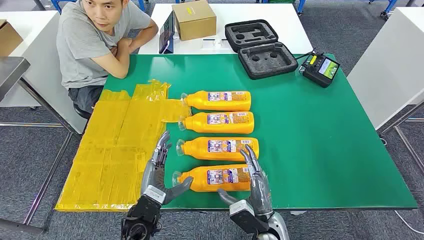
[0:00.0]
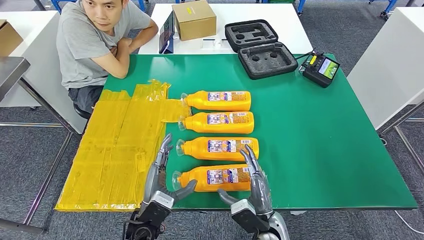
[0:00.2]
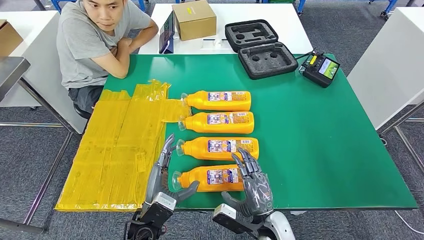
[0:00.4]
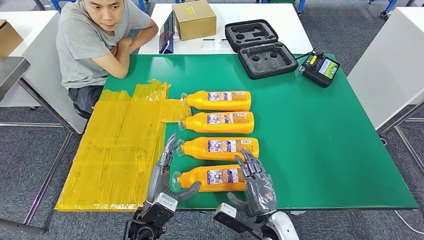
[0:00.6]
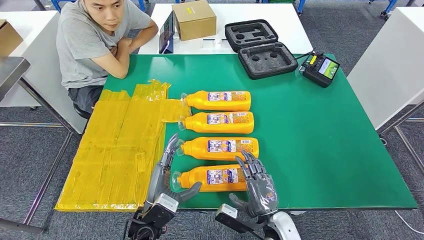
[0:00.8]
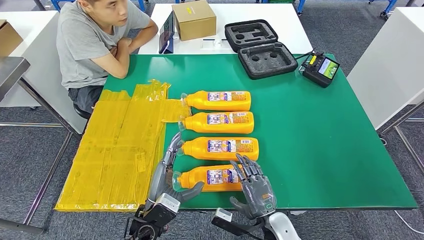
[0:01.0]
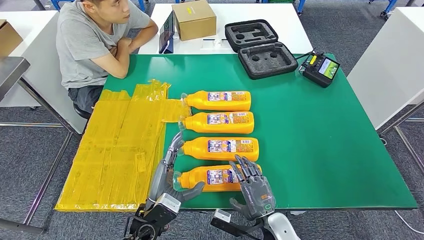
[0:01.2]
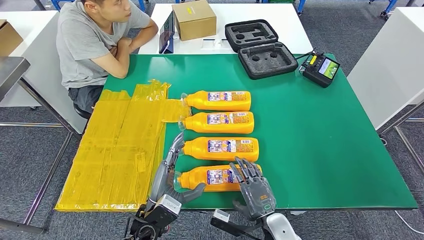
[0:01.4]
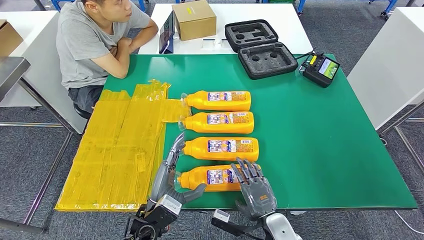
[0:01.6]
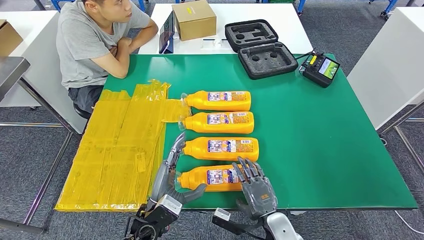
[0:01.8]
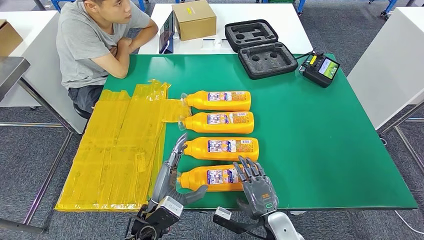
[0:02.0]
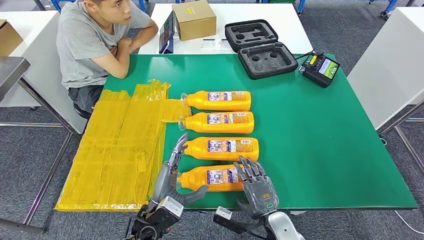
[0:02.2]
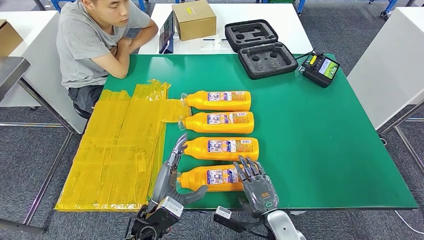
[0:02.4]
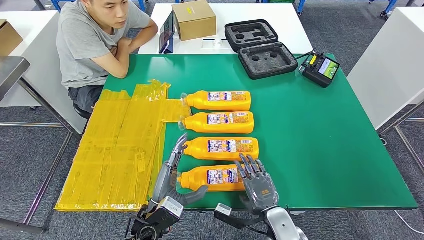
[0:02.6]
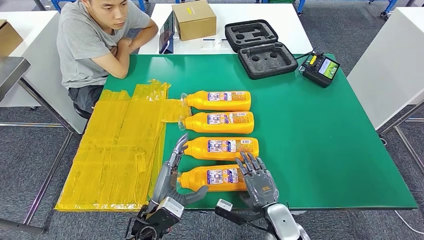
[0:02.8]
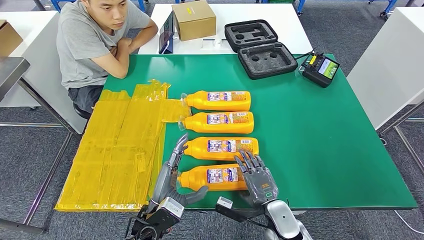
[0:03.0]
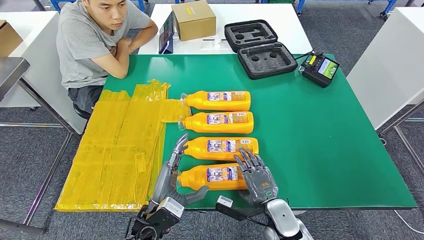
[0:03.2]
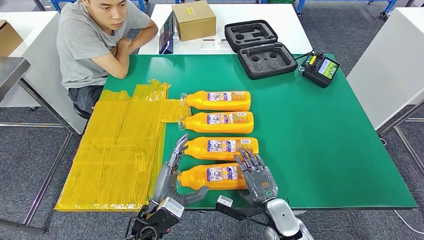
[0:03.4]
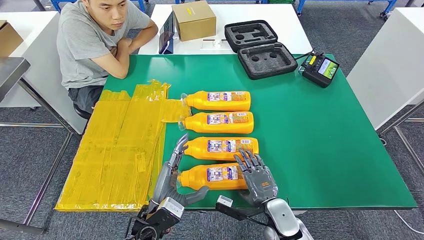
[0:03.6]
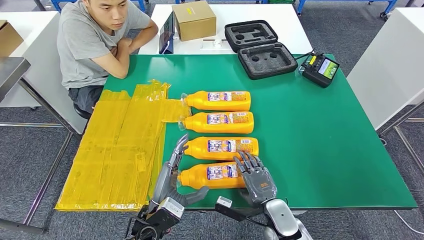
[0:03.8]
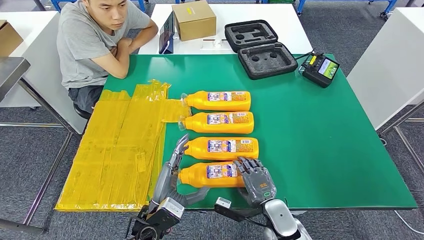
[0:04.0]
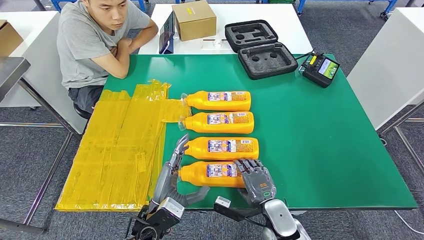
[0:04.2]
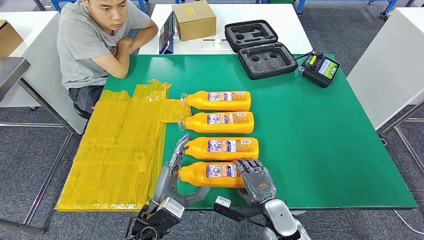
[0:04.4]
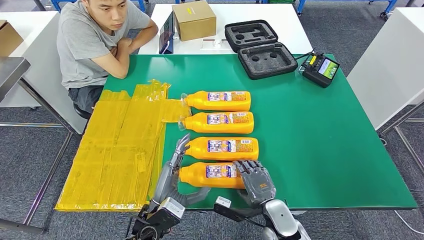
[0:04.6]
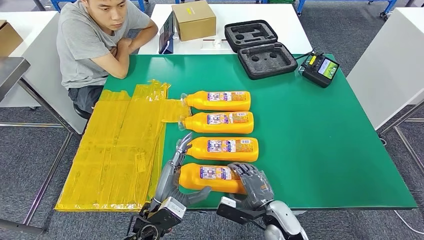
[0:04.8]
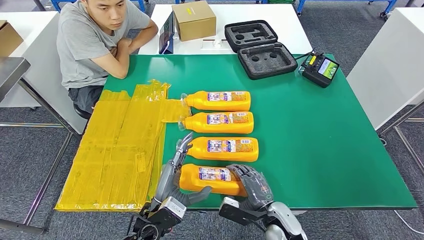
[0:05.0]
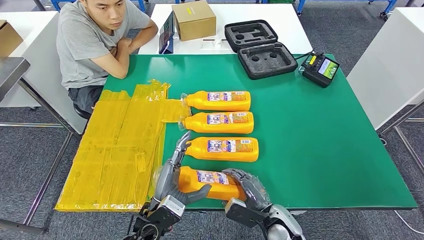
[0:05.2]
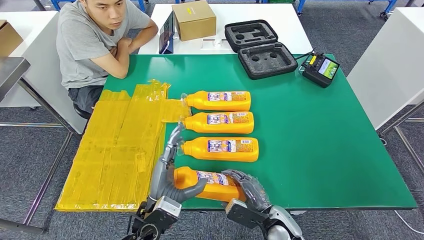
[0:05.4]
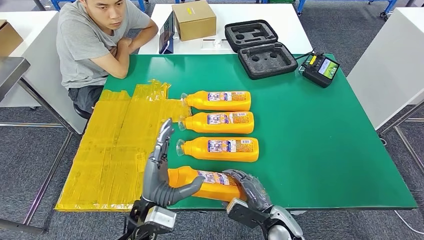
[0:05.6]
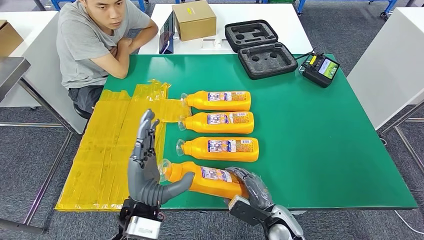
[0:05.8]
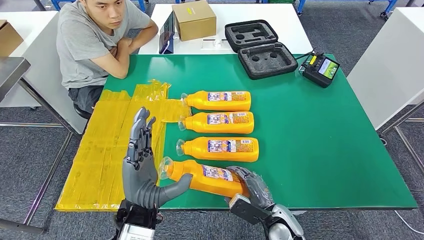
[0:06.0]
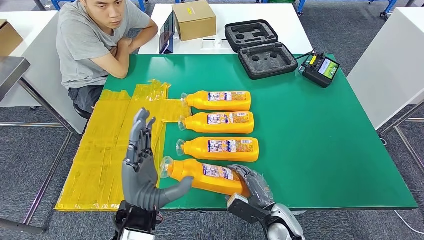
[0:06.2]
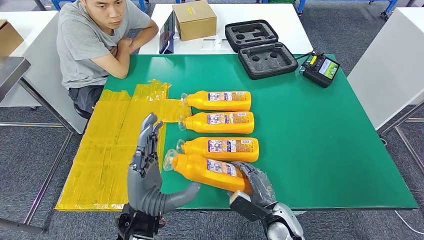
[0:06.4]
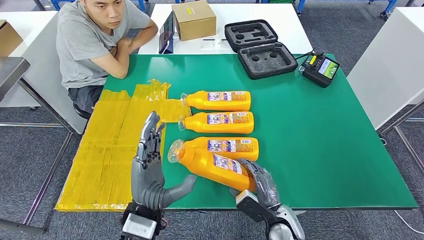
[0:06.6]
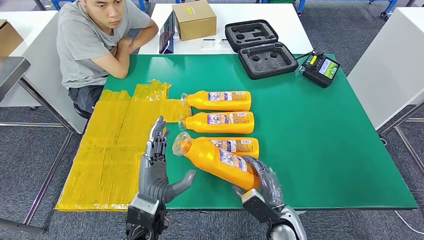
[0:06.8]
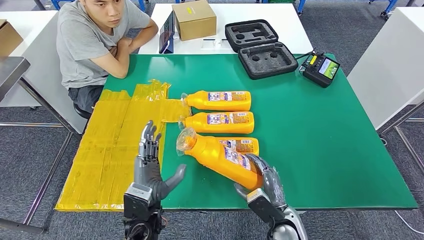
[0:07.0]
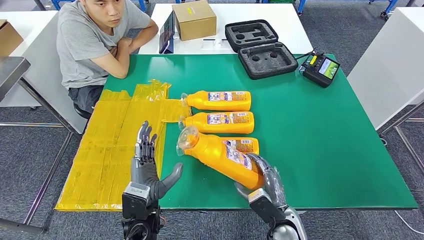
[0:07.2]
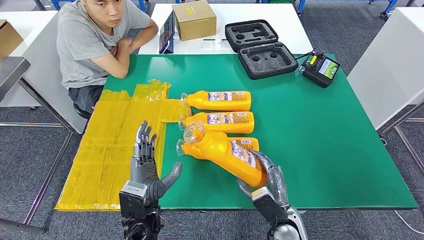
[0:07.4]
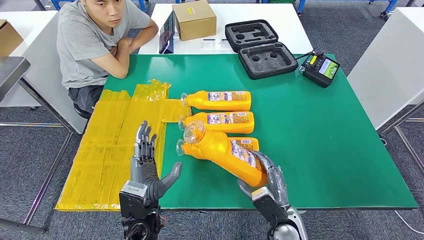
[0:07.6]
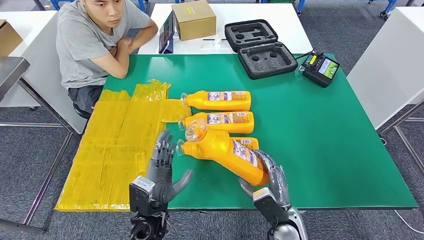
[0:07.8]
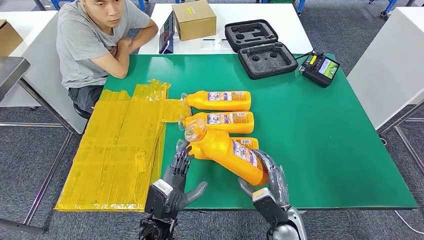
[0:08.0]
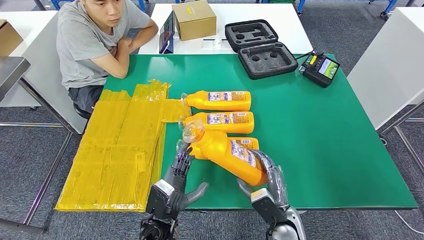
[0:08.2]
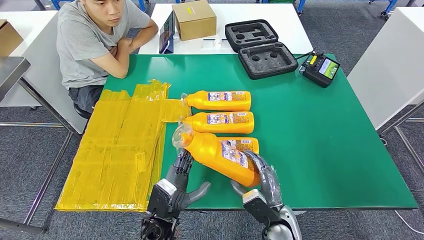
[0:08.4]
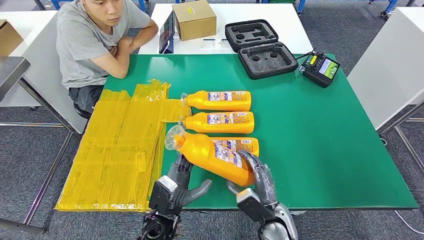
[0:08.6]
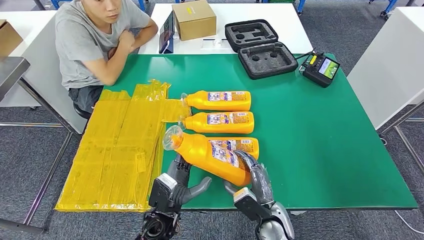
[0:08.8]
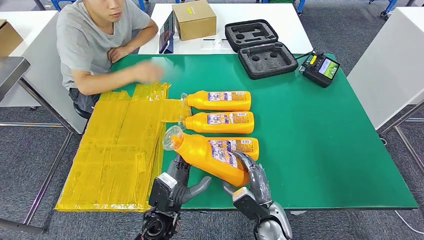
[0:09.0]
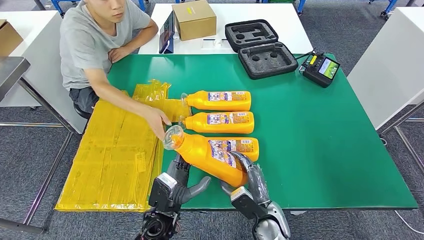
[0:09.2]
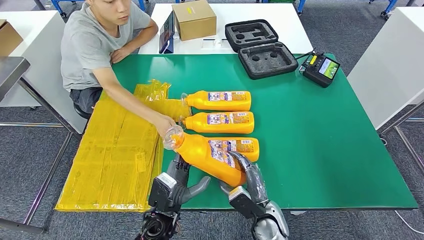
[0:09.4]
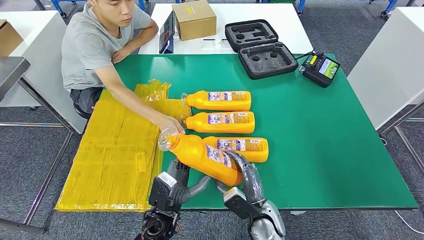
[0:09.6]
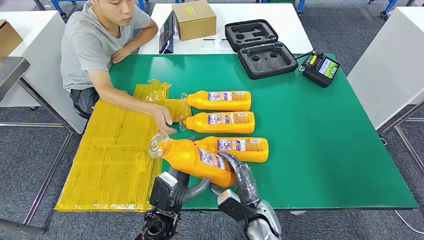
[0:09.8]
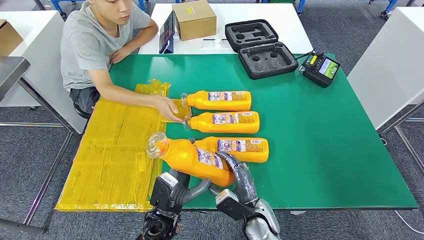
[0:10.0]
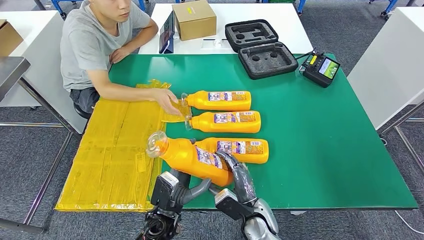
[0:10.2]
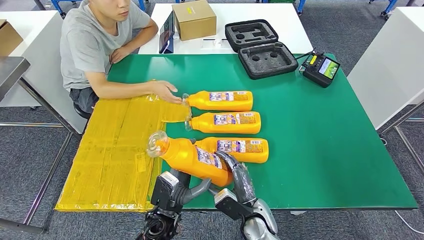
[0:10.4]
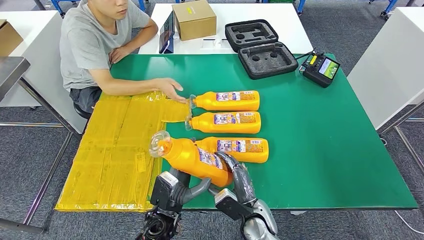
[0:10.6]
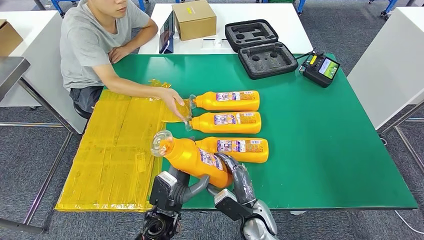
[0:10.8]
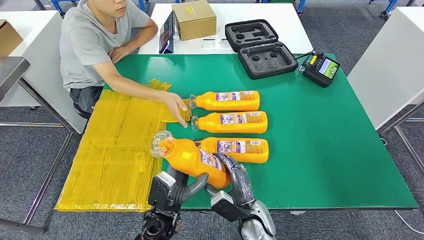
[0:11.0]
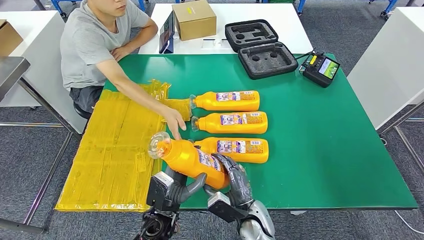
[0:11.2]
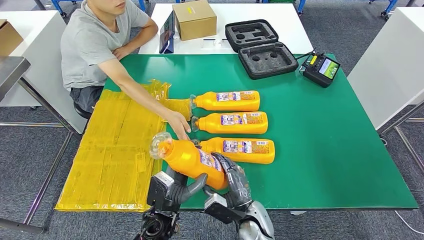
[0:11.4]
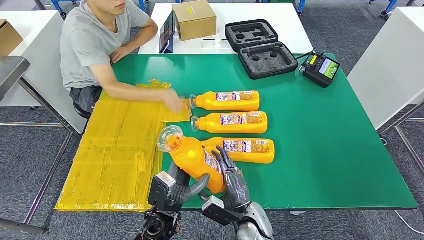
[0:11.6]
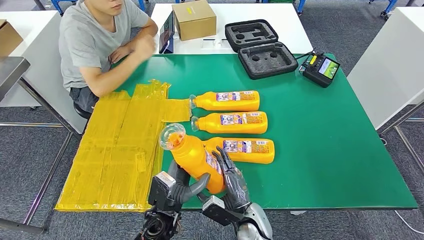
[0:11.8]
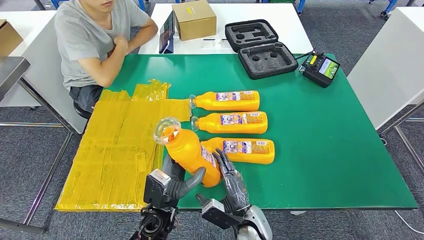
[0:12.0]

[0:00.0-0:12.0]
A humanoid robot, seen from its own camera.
Step, 0:00.0 to 0:09.2: Take the fast-moving consumer goods bottle from the table.
0:01.6 to 0:04.4: There are only small adjustments of the hands.
0:04.4 to 0:06.0: The left hand shifts approximately 10 cm upward.
0:06.0 to 0:07.6: The left hand shifts roughly 5 cm downward.
0:07.6 to 0:09.0: The left hand moves about 5 cm.
0:09.0 to 0:12.0: There are only small adjustments of the hands.

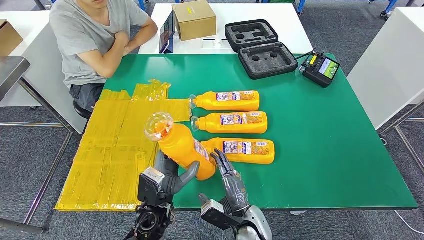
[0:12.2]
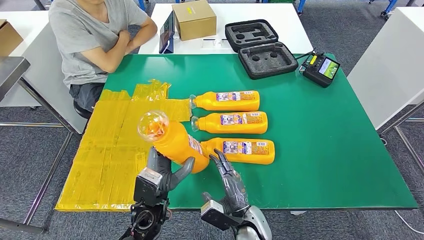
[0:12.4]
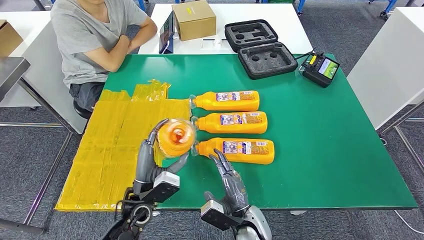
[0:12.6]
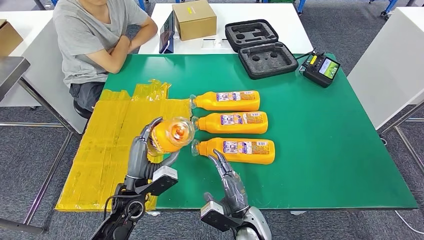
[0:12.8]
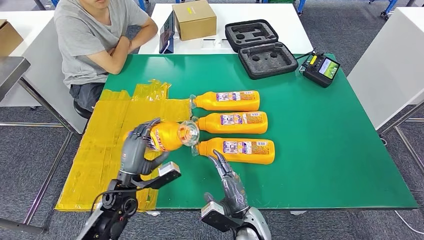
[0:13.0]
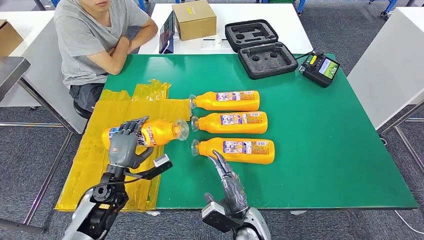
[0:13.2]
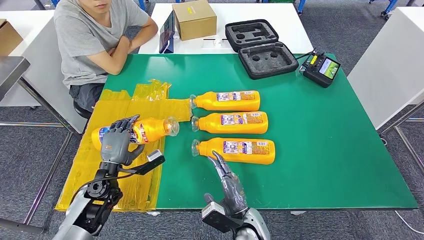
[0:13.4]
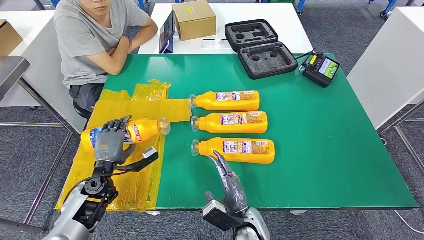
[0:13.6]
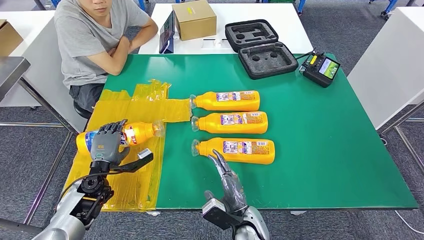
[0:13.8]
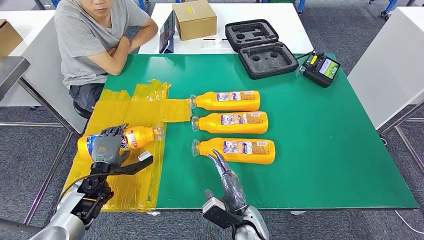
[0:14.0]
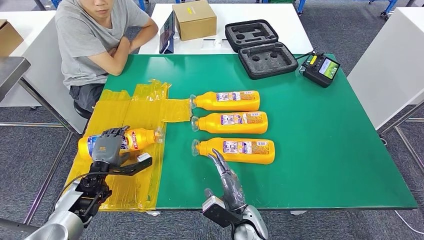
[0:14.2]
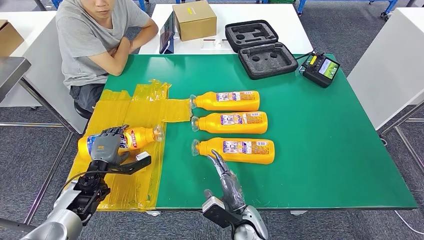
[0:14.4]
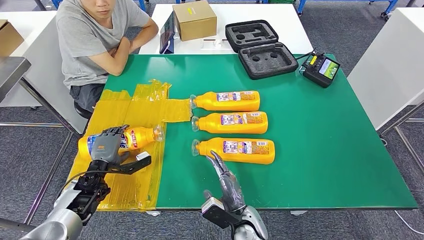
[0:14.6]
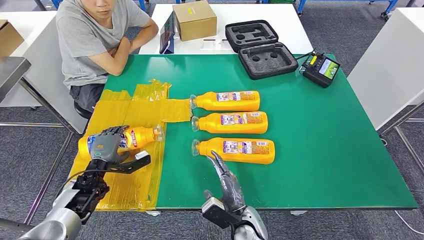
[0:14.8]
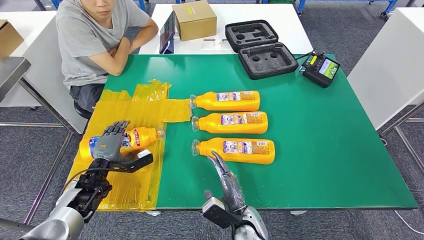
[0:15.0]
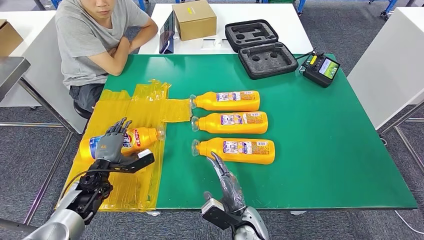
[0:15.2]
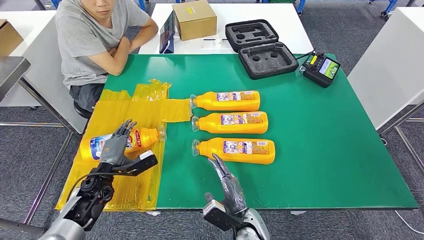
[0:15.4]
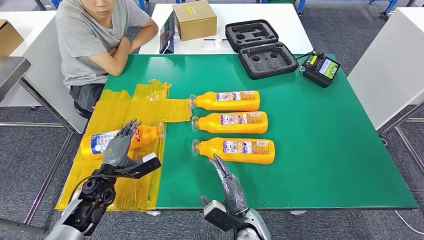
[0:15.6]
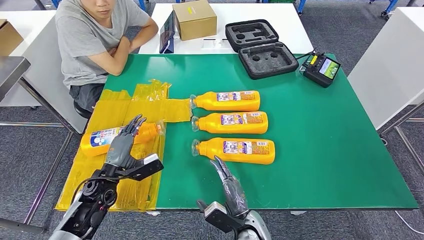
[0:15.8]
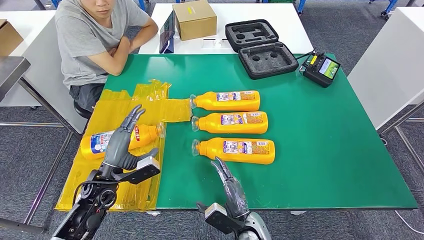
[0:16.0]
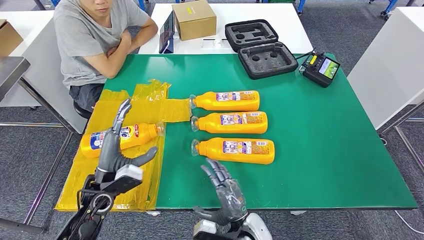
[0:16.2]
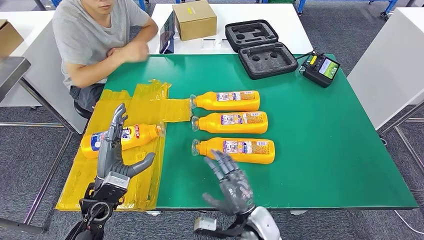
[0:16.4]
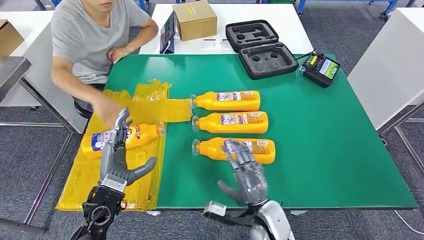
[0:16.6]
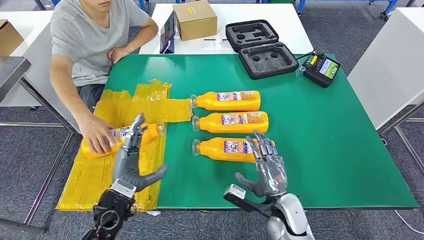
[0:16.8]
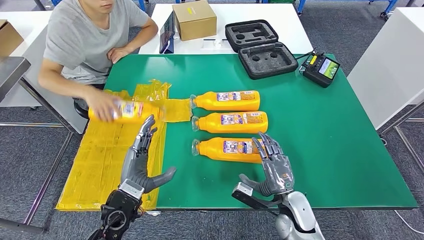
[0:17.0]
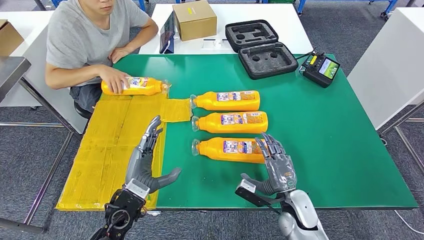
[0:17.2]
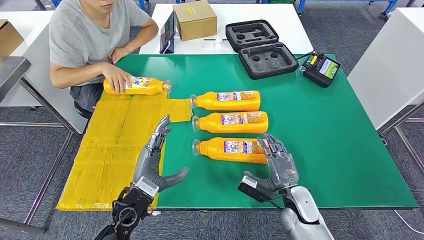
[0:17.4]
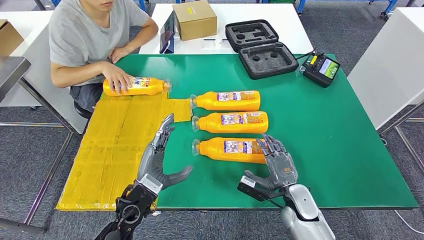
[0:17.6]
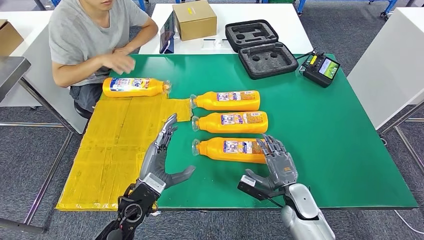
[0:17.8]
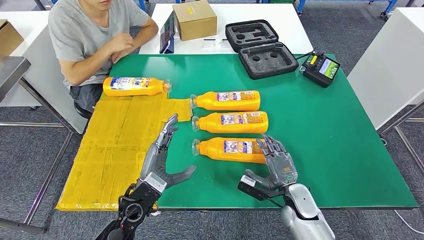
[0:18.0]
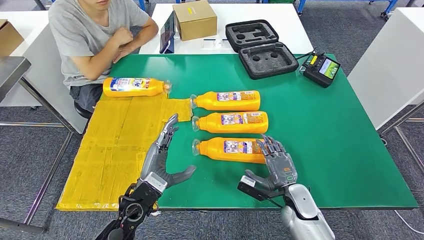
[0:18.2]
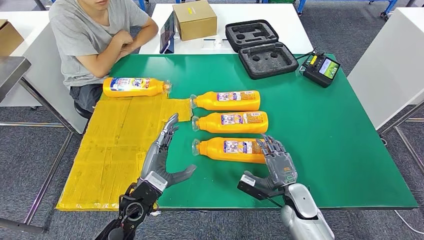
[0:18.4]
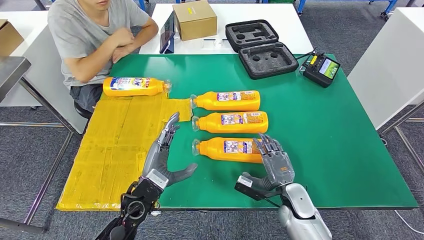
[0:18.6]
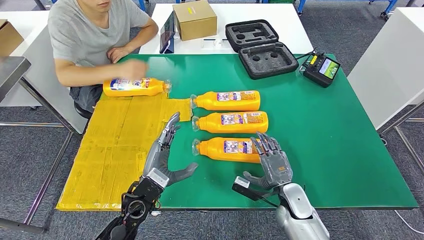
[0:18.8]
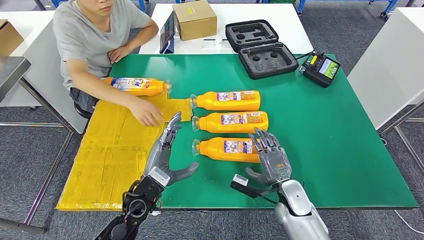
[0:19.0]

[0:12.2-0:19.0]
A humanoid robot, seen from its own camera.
Step, 0:12.2 to 0:16.0: Flip the fast-moving consumer goods bottle to the front side.
0:12.2 to 0:13.6: The left hand travels to the left and forward by some 20 cm.
0:13.6 to 0:15.0: The hands make only small movements.
0:15.0 to 0:16.2: The left hand moves upward, backward and to the right, some 10 cm.
0:16.2 to 0:17.6: The left hand moves to the right, roughly 10 cm. The right hand is displaced to the right and forward by roughly 15 cm.
0:17.6 to 0:19.0: There are only small adjustments of the hands.
